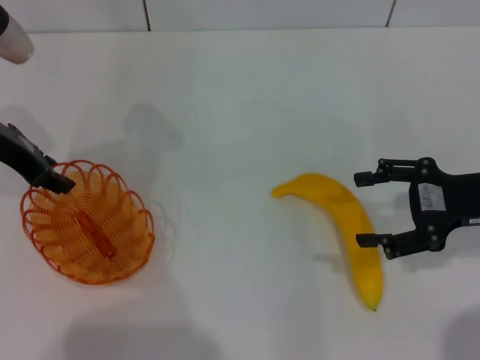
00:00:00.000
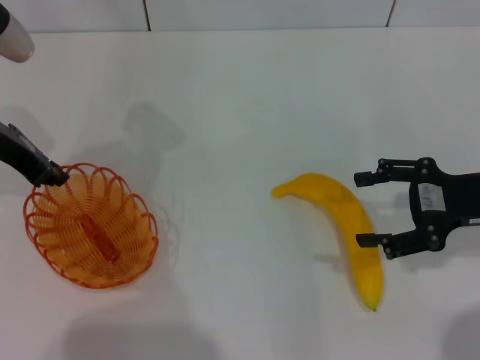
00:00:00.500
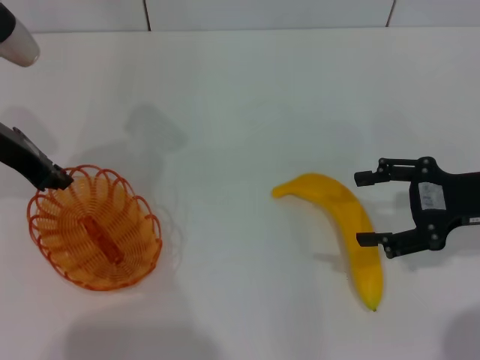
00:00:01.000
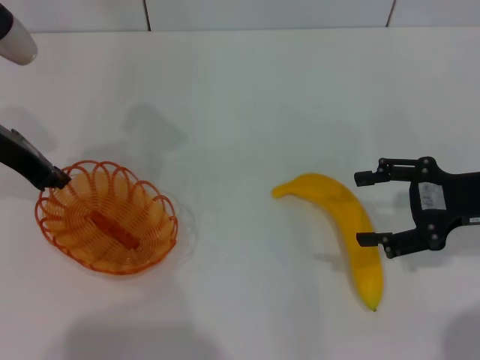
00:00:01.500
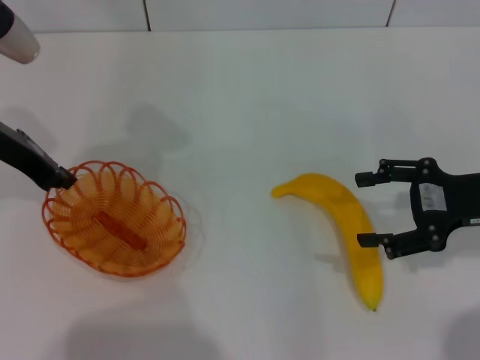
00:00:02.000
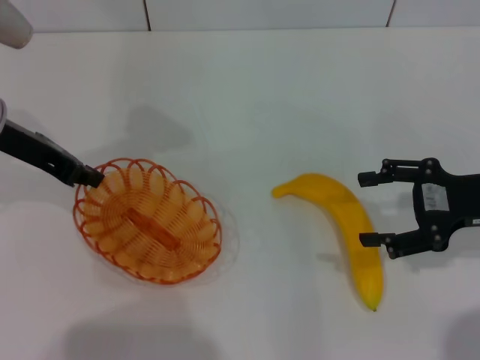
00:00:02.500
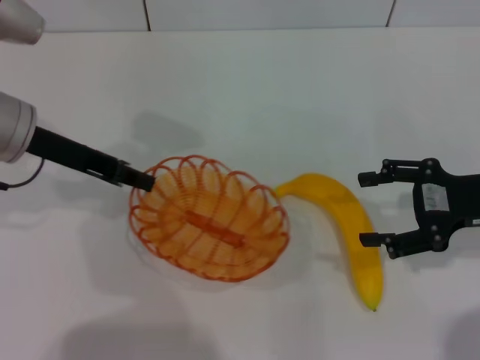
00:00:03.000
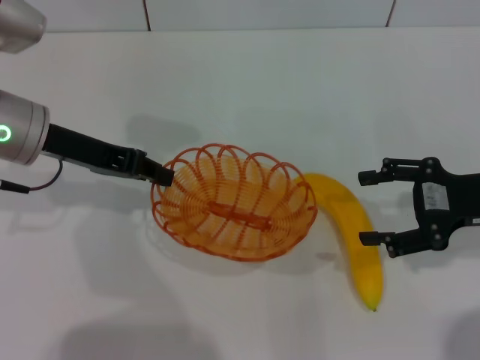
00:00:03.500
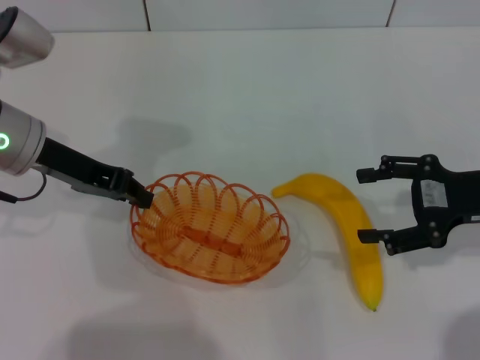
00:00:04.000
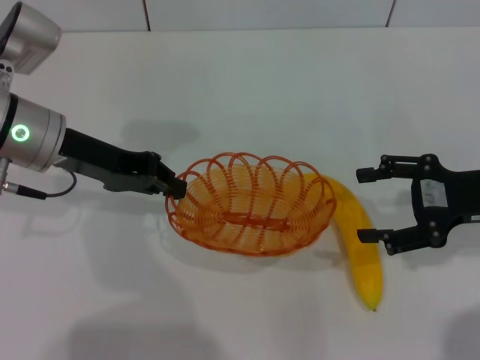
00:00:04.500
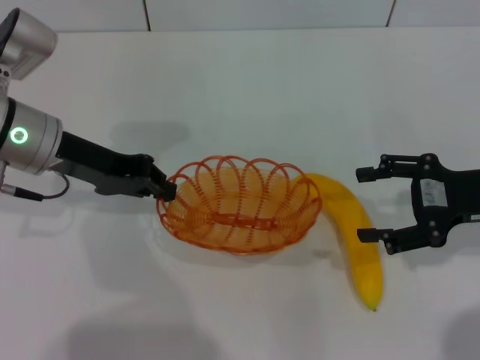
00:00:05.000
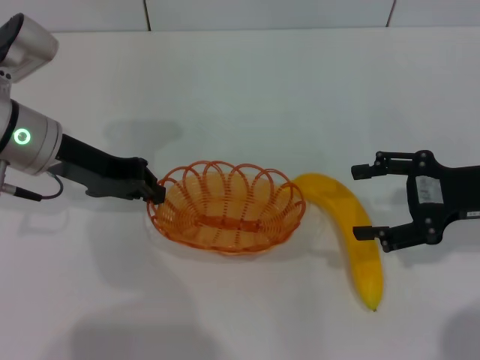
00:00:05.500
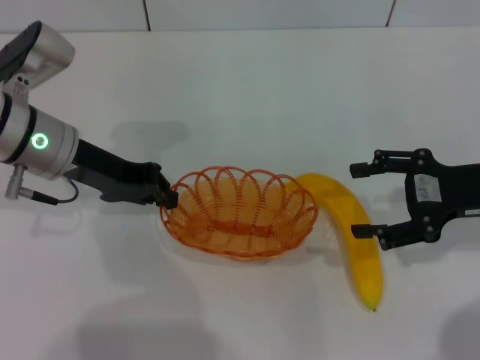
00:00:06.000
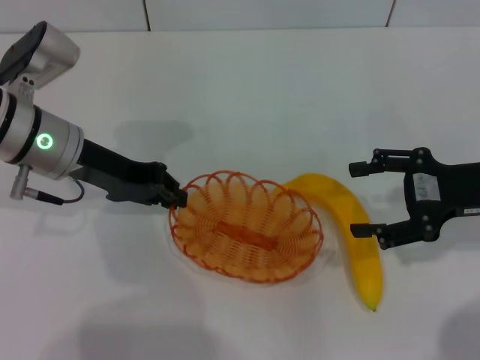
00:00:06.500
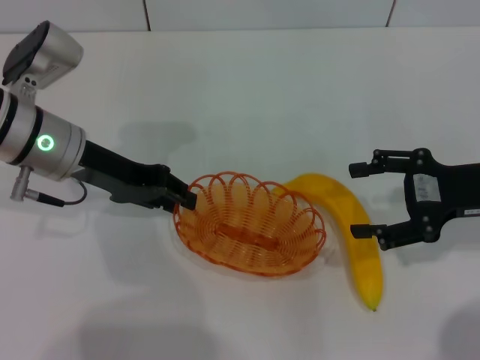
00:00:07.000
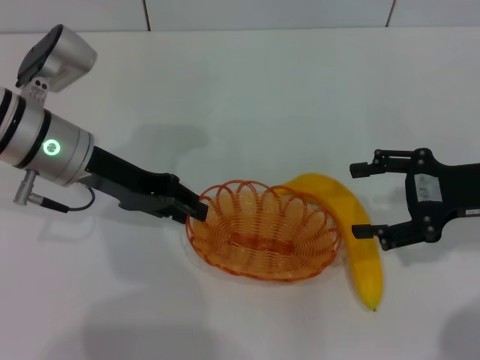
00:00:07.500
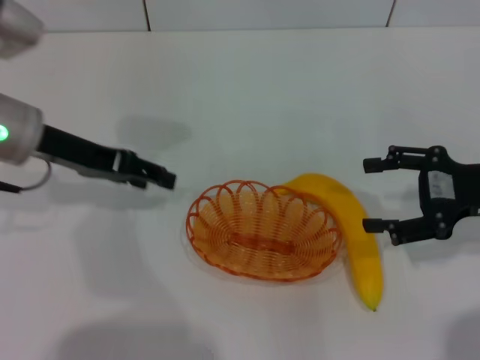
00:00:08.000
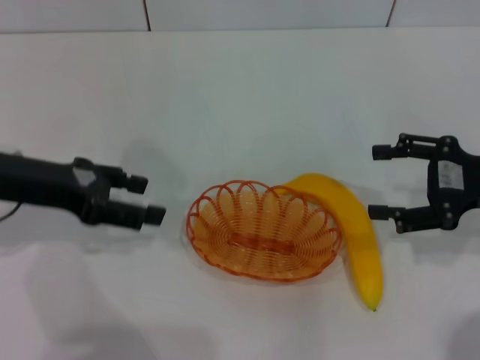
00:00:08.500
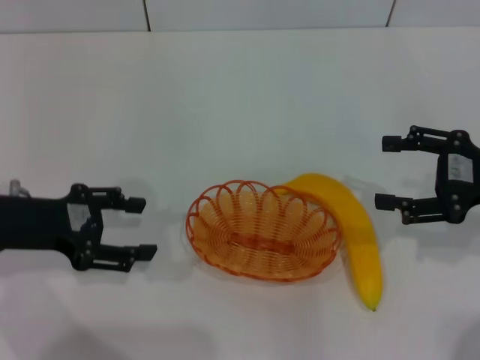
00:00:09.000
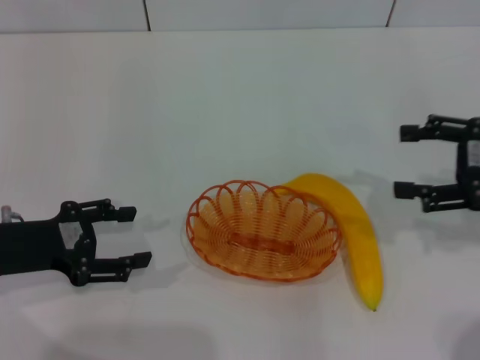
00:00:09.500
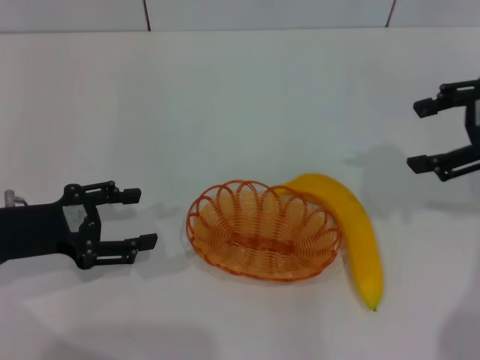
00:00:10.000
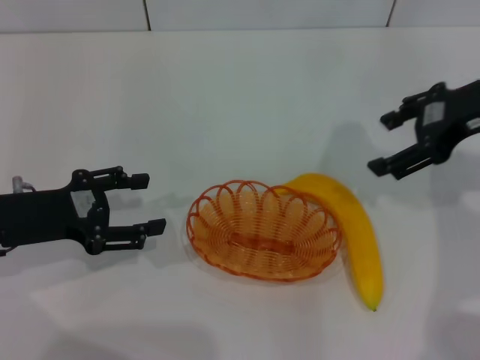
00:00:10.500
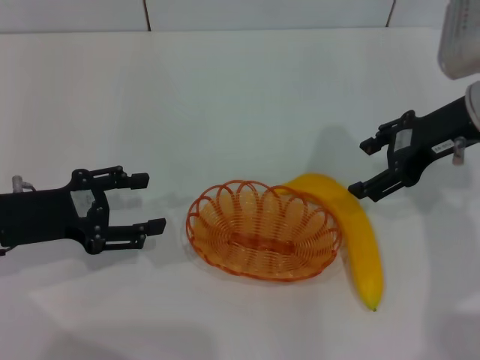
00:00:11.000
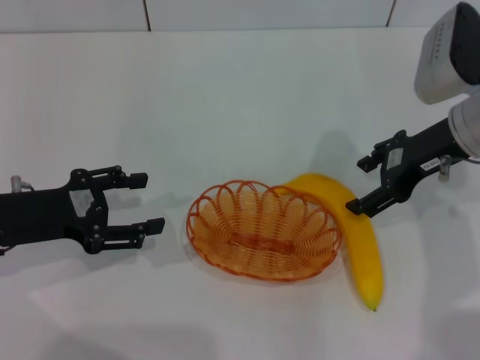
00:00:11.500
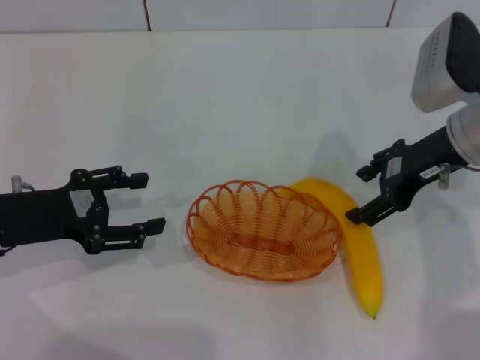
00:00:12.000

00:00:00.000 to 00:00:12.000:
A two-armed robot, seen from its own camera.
Step, 00:00:00.000 to 00:00:02.000: Pick up the basket with the left gripper.
Step, 00:00:02.500 to 00:00:08.000: Place the basket in the center of view with the left gripper.
00:00:00.000 to 00:00:02.000: The left gripper closes up.
00:00:04.000 to 00:00:06.000: There are only small adjustments of the grippers.
00:00:06.000 to 00:00:08.000: The left gripper opens its fingers.
00:00:08.000 to 00:00:10.000: The right gripper shifts about 10 cm upward. Meanwhile the left gripper shifts roughly 15 cm backward, downward and to the left, and opens its fingers.
00:00:10.000 to 00:00:12.000: The right gripper moves downward and to the left, about 10 cm.

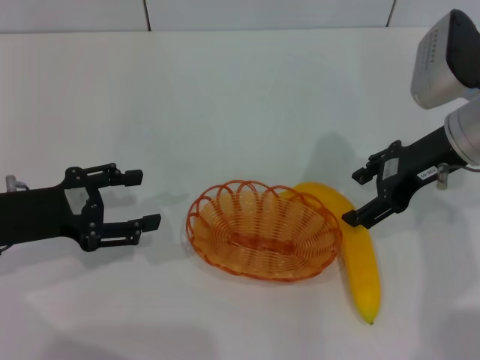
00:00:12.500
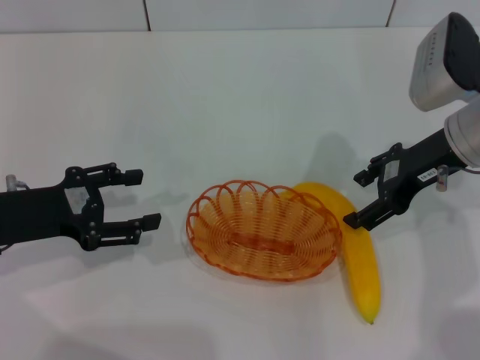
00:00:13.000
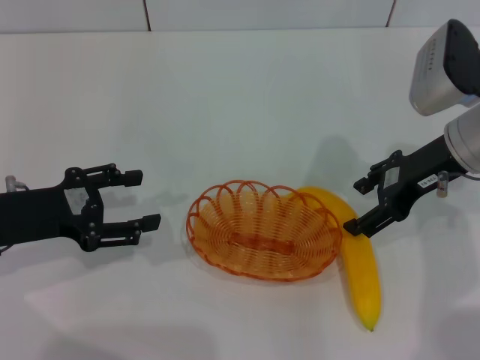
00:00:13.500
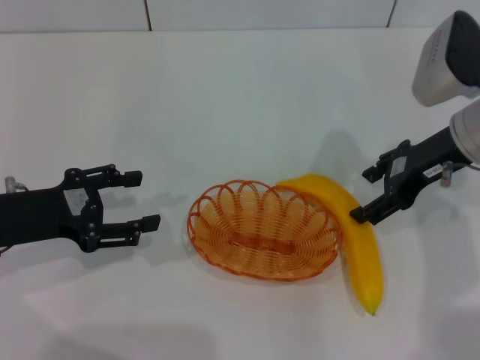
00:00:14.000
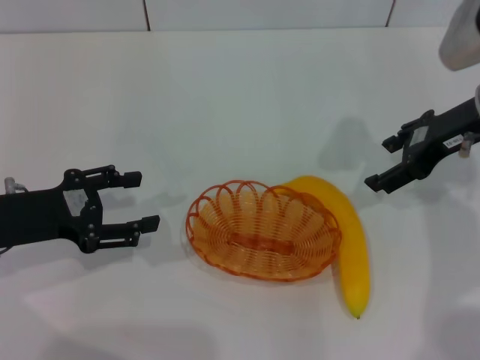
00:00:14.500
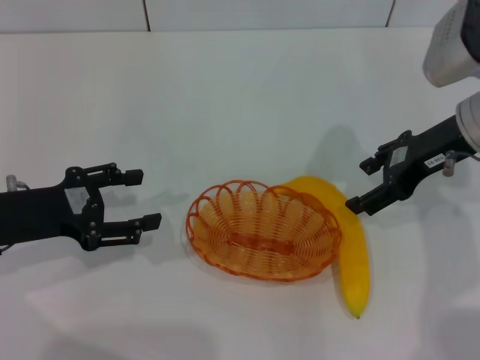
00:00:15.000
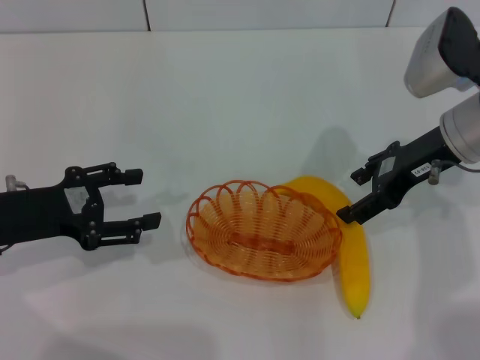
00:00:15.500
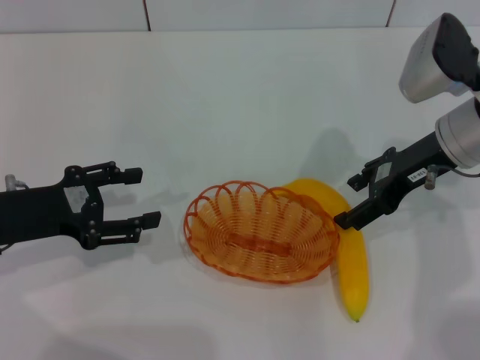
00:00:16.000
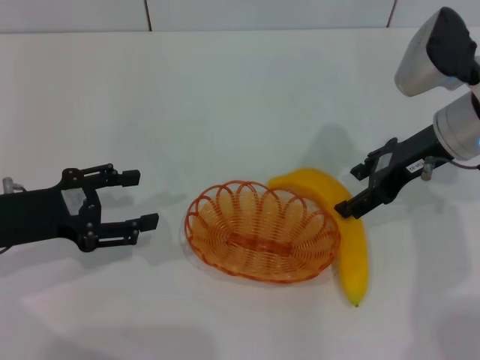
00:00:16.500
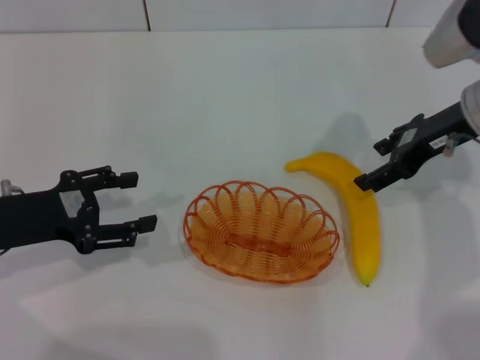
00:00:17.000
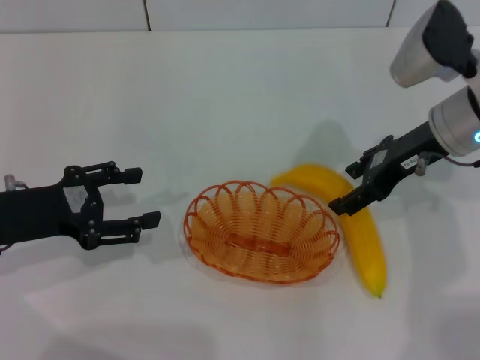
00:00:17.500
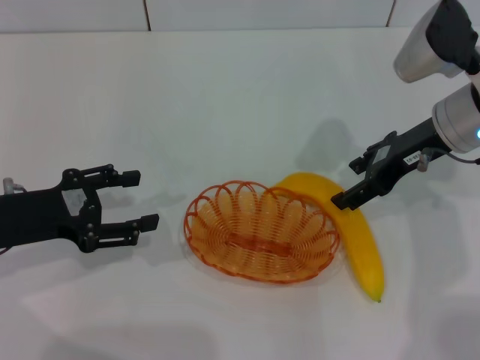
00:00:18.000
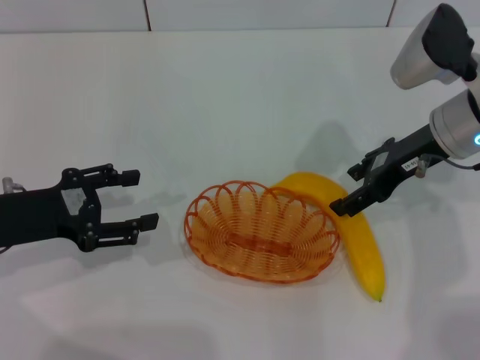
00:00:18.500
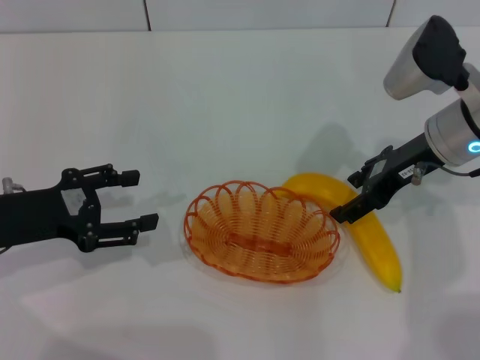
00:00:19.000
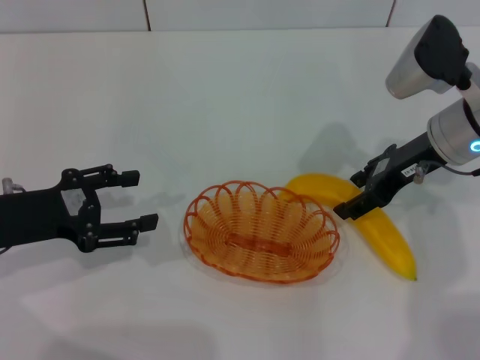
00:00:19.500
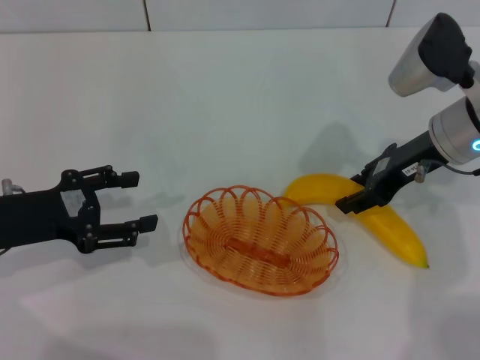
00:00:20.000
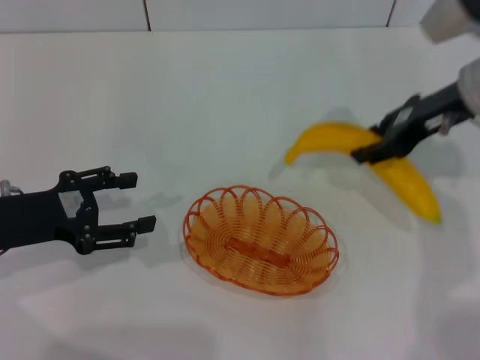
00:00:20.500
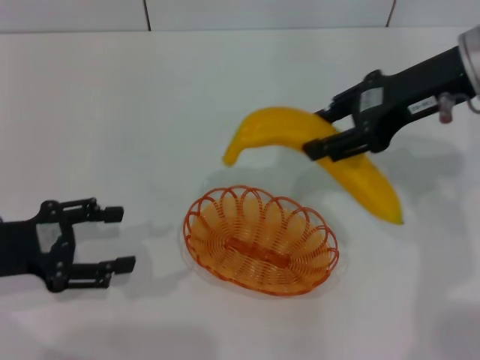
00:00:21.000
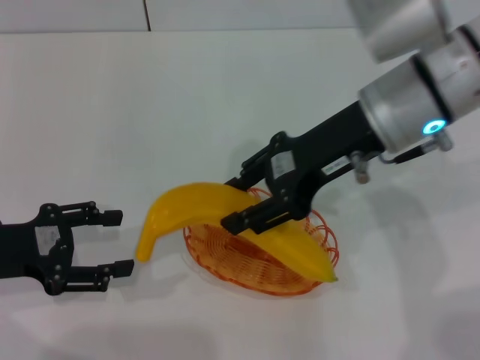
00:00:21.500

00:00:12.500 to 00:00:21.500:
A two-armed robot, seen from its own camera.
Step, 00:00:12.500 to 00:00:20.500: Pick up the banana with the right gripper.
00:00:12.500 to 00:00:19.500: The grippers make only small movements.
00:00:19.500 to 00:00:21.500: The right gripper moves to the left and upward, approximately 10 cm, and closes up.

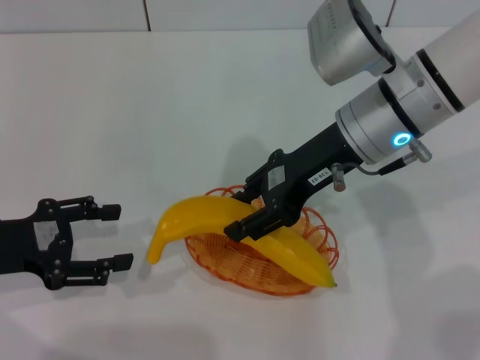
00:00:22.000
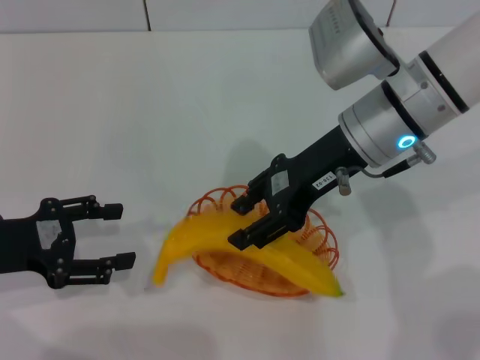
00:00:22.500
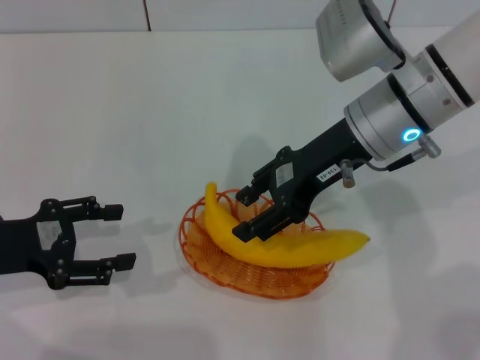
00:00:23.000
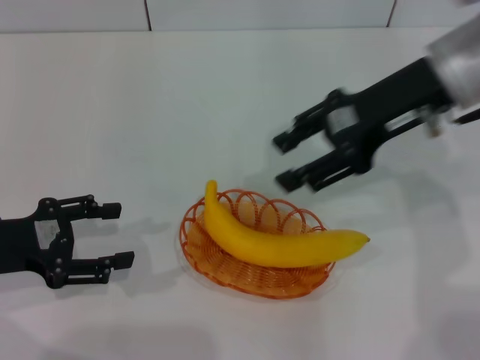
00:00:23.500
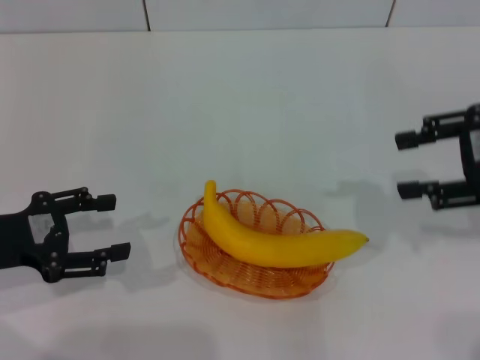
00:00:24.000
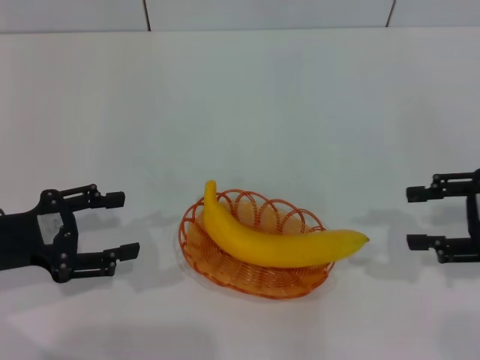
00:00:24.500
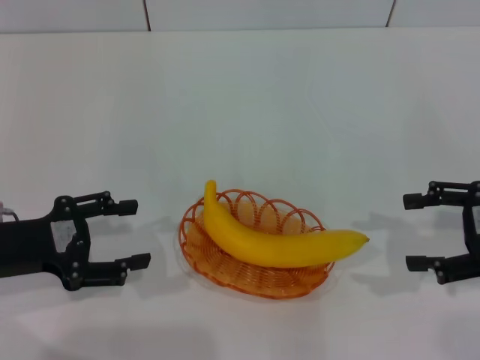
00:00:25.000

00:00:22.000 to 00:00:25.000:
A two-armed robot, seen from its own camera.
00:00:22.000 to 00:00:23.500: The right gripper goes roughly 10 cm to the right and upward.
00:00:23.500 to 00:00:25.000: The right gripper is displaced to the right, downward and backward by some 20 cm, and opens its fingers.
